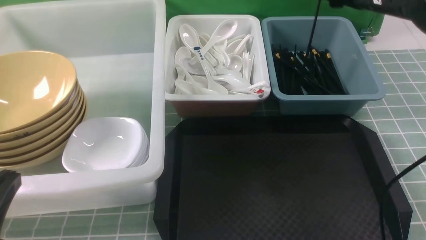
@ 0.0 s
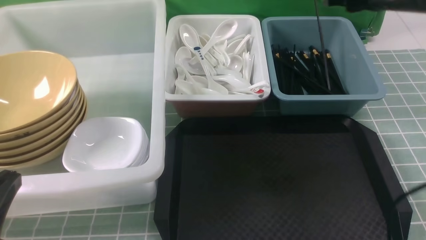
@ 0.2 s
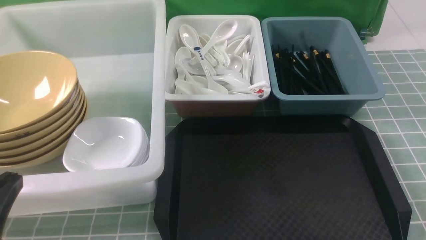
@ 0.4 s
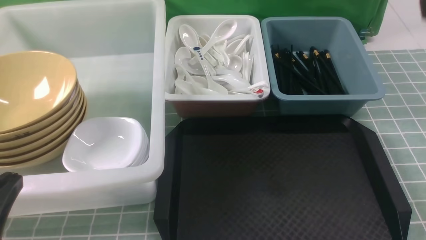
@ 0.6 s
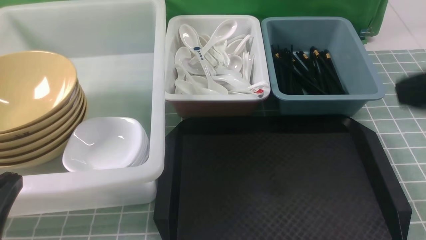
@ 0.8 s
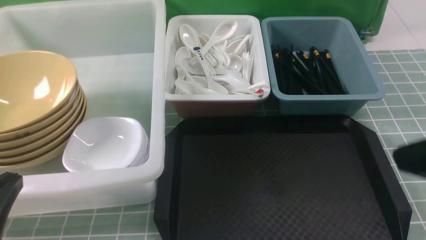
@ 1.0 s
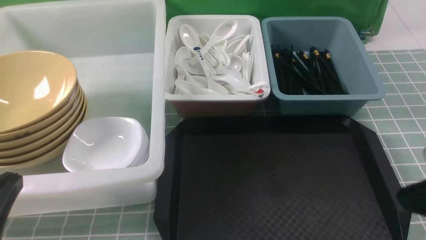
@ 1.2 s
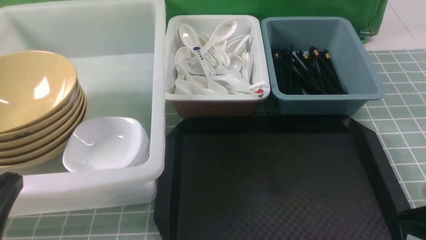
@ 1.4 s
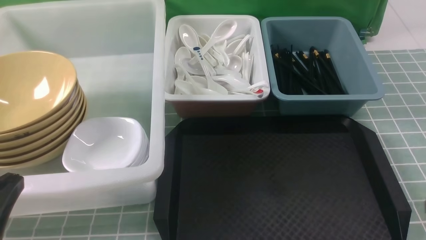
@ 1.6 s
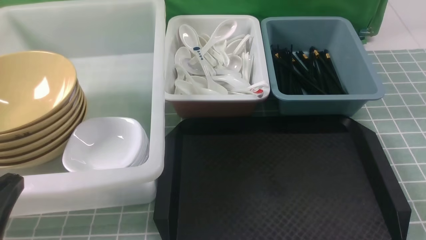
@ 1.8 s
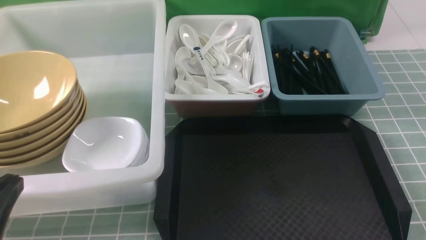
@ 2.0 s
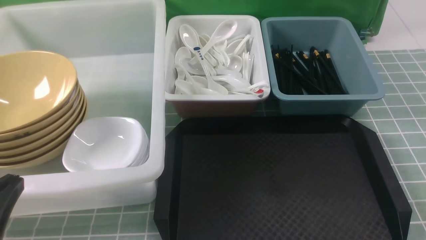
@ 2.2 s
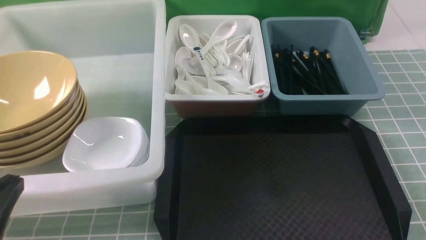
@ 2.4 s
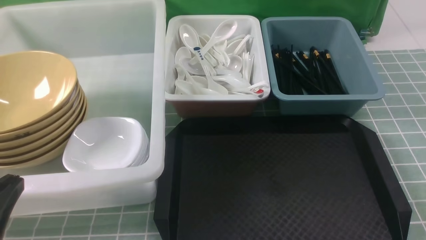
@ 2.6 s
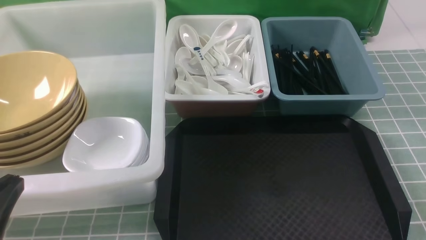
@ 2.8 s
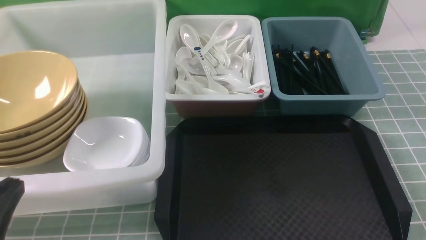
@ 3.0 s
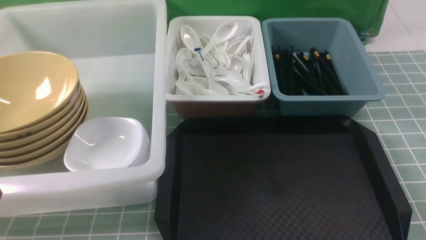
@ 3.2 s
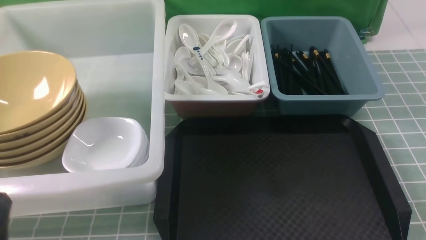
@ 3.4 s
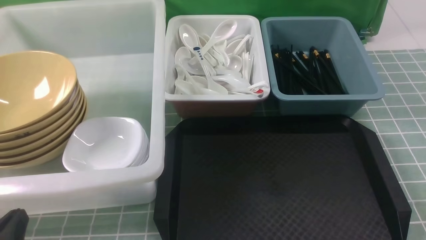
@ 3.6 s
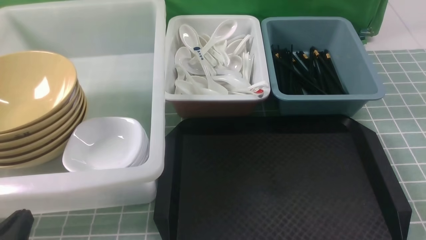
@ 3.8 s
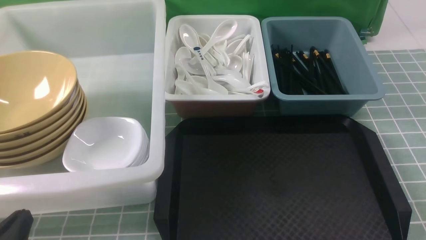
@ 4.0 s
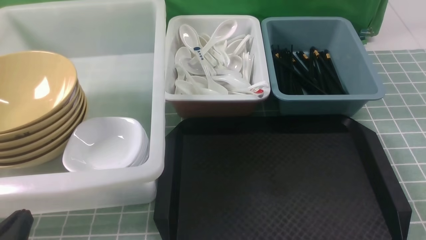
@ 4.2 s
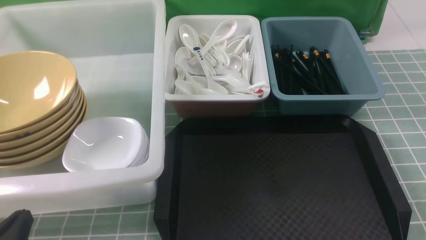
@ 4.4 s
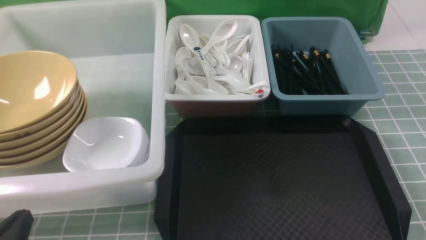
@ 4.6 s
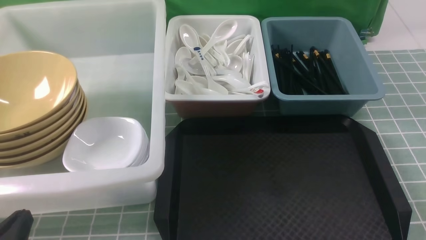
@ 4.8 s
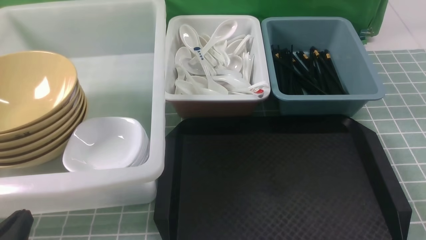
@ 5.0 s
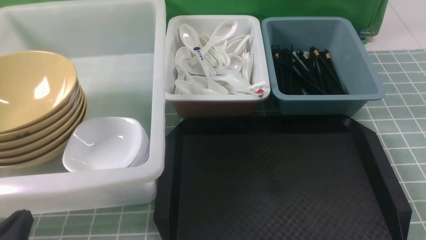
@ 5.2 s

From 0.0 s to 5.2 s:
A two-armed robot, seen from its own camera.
Task of the whole recording: on blue table put chopsticks spoon bowls plates into blue grey white boxes.
From 0.0 s to 1.8 s: The right gripper goes about 35 cm backward and downward, and closes.
From 1.8 s to 3.4 s: The left gripper goes about 5 cm downward.
From 3.4 s to 5.2 s: The grippers move only a little.
